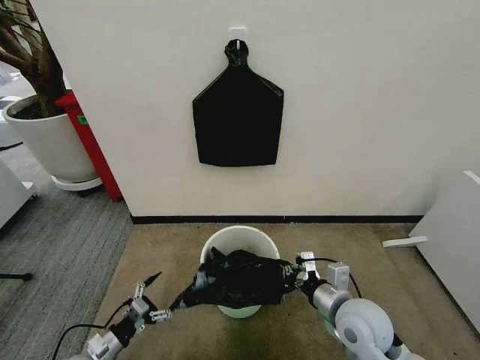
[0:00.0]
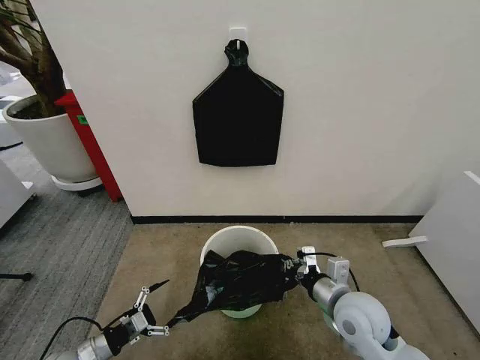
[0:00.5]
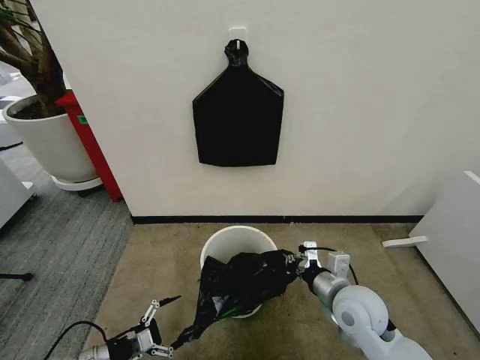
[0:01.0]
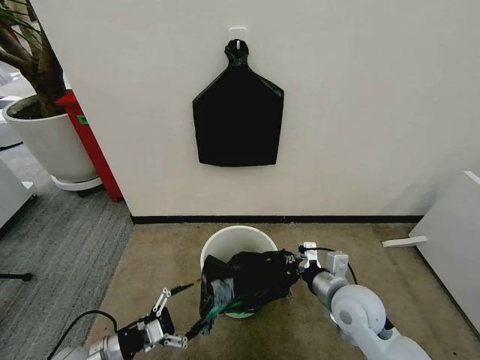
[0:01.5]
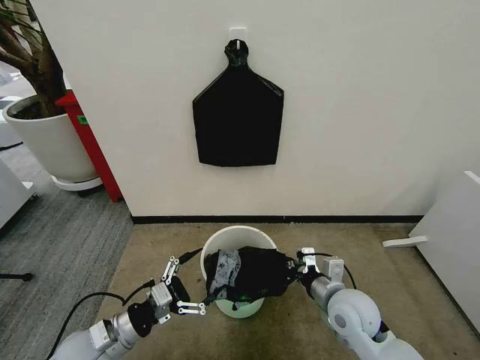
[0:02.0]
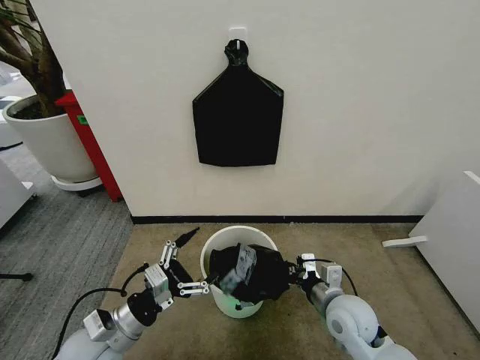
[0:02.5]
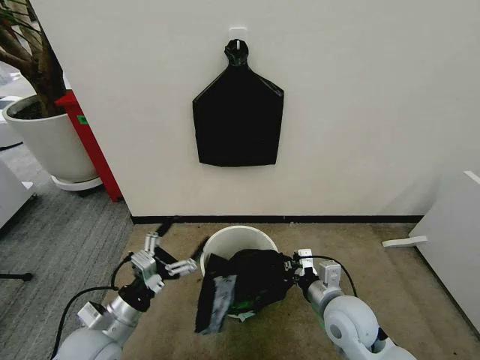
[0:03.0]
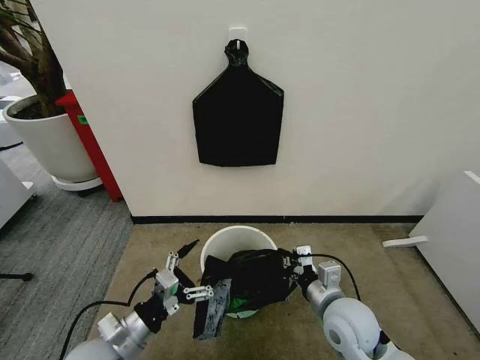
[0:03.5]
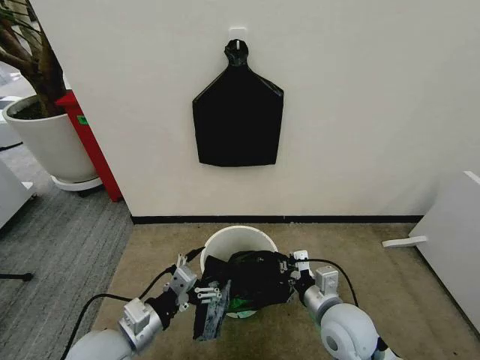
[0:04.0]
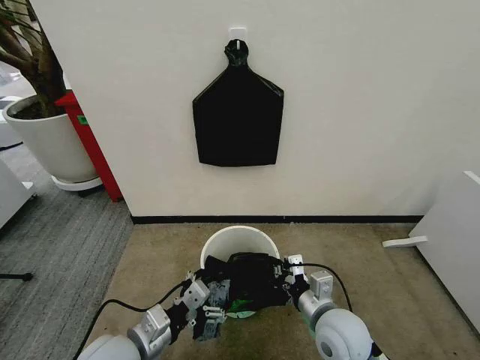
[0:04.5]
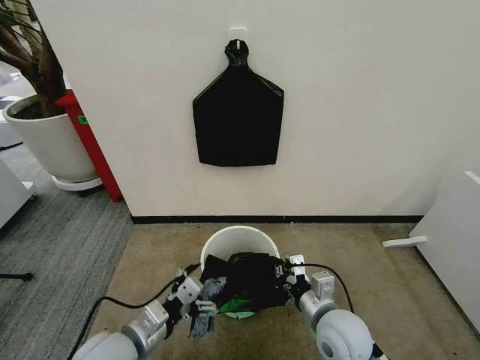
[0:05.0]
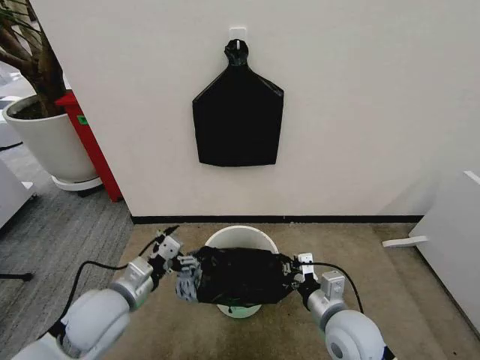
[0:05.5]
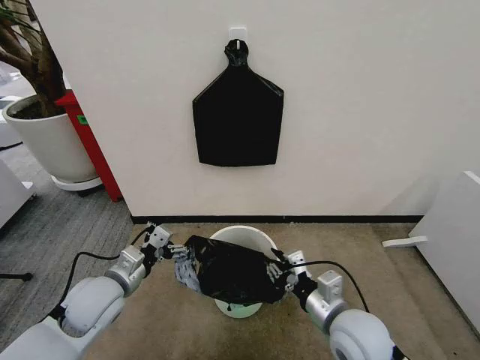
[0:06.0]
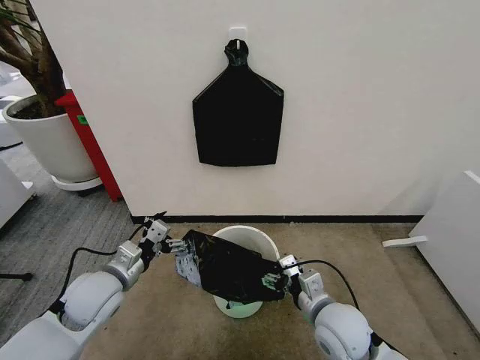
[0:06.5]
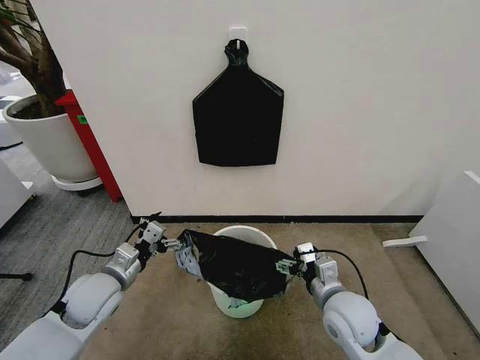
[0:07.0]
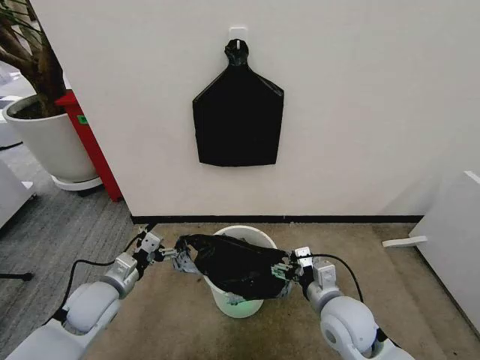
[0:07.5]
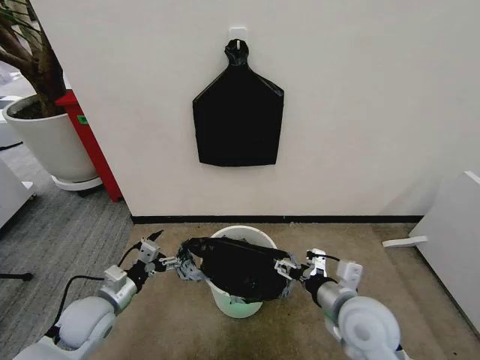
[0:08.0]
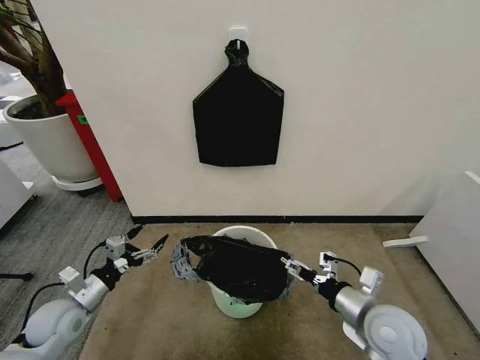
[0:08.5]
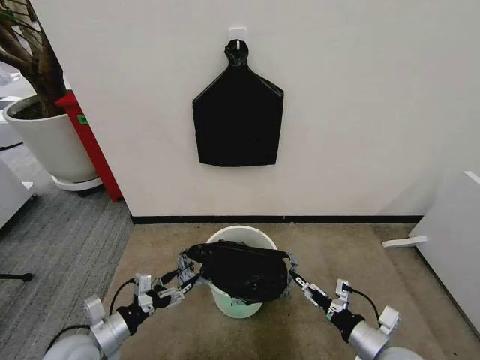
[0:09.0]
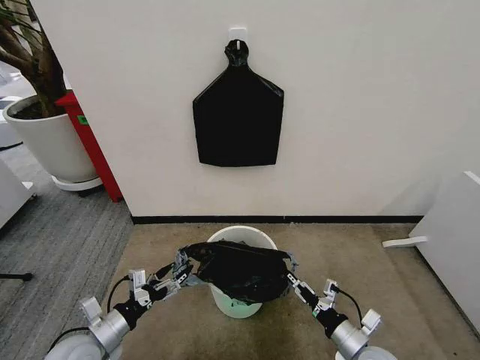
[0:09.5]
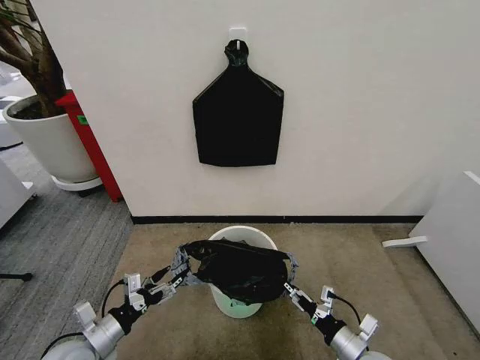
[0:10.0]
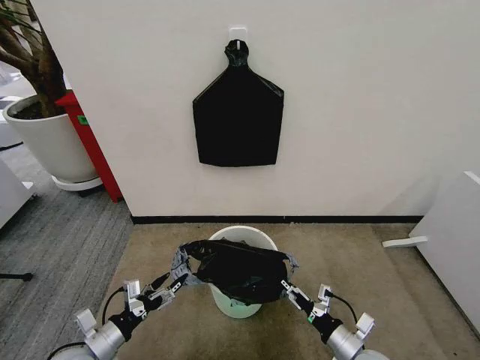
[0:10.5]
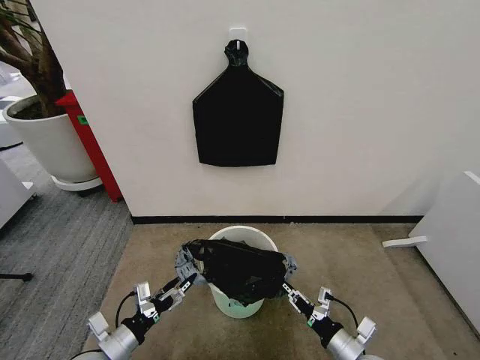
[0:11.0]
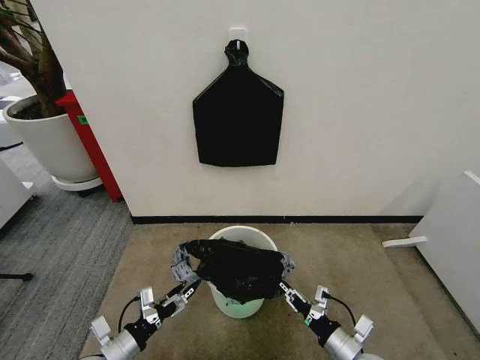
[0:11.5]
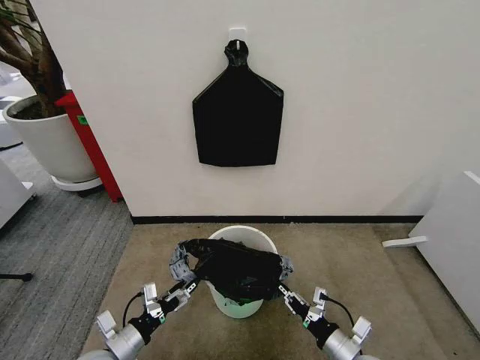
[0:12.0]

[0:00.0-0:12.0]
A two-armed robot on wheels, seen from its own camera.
Task of the whole recording: Place the garbage bag over the trash bin.
0:00.0 to 0:02.0: The left gripper goes some 15 cm upward and to the right.
0:02.0 to 0:04.0: The left gripper heads to the right and upward, covering roughly 10 cm.
0:04.0 to 0:06.0: The left gripper is displaced forward by about 10 cm.
0:06.0 to 0:08.0: The right gripper opens up, while the left gripper moves downward, approximately 5 cm.
0:08.0 to 0:10.0: The left gripper moves backward, some 5 cm. Meanwhile the right gripper goes approximately 20 cm downward and to the right.
0:10.0 to 0:12.0: The right gripper closes. Meanwhile the left gripper moves about 5 cm.

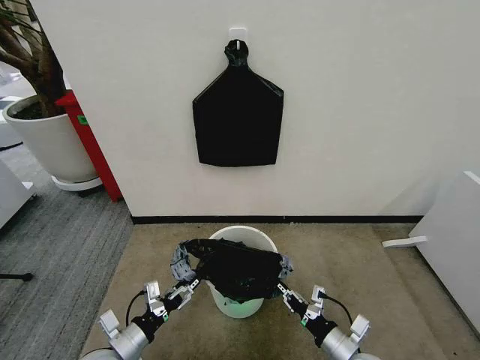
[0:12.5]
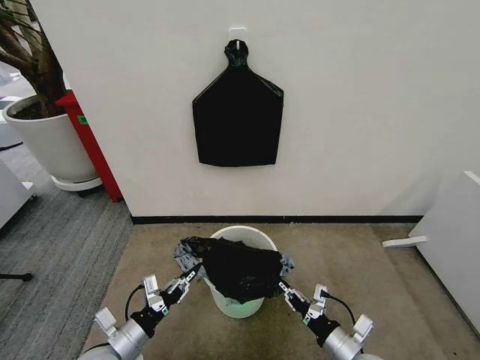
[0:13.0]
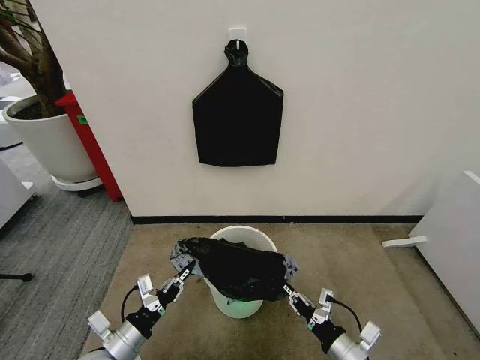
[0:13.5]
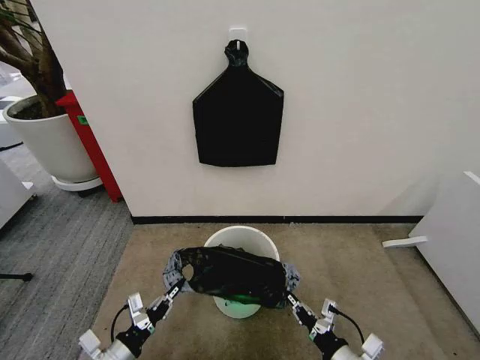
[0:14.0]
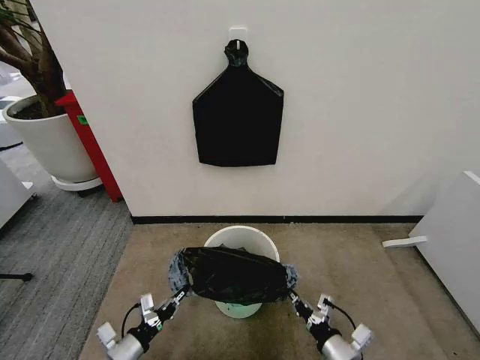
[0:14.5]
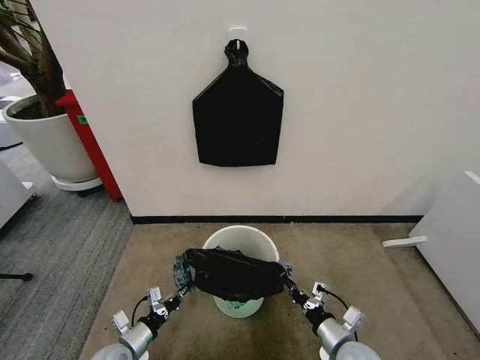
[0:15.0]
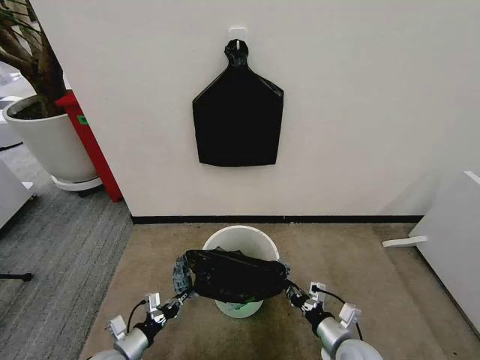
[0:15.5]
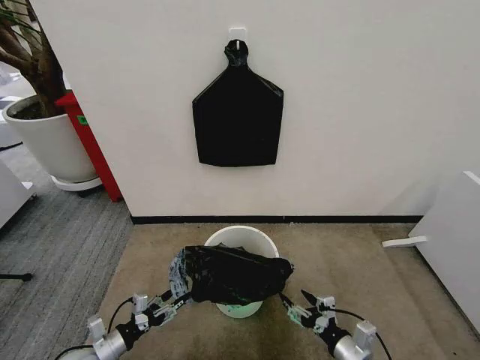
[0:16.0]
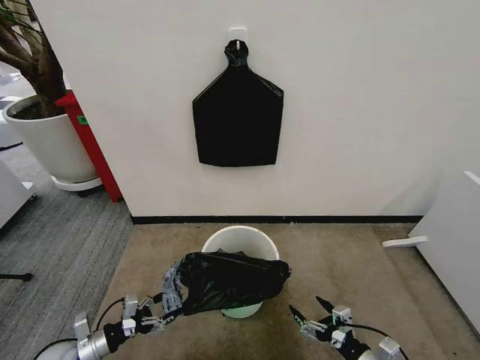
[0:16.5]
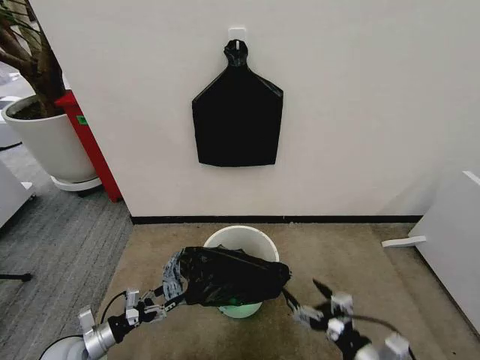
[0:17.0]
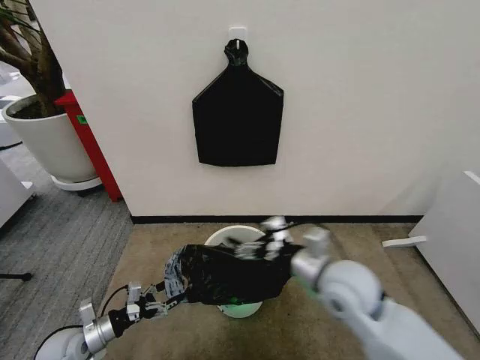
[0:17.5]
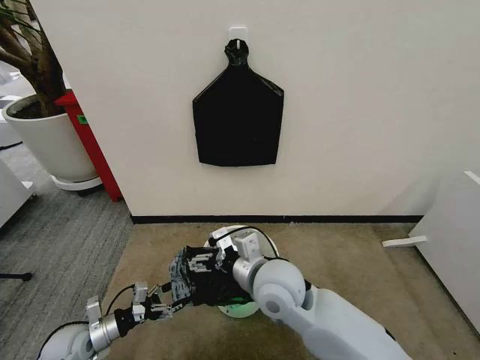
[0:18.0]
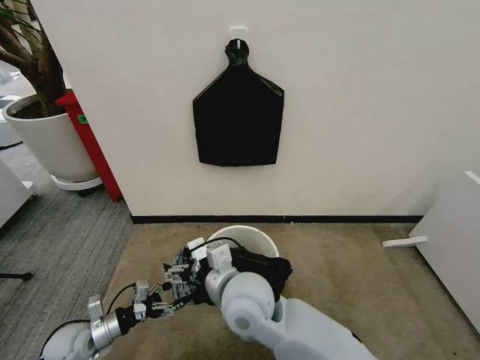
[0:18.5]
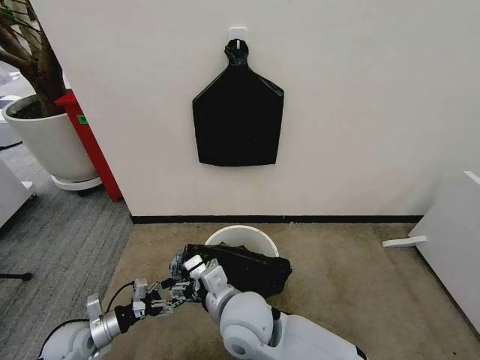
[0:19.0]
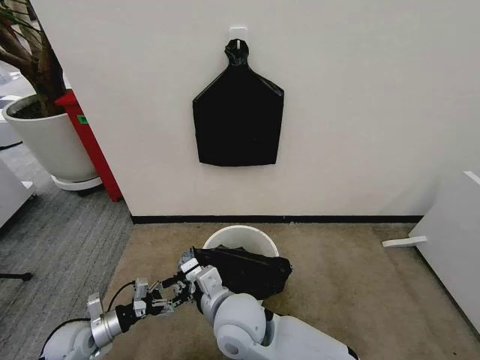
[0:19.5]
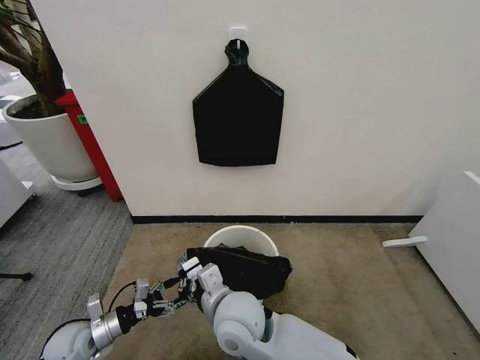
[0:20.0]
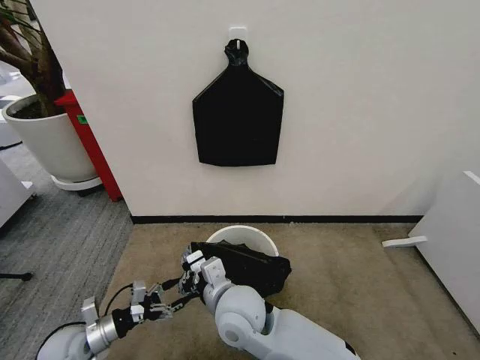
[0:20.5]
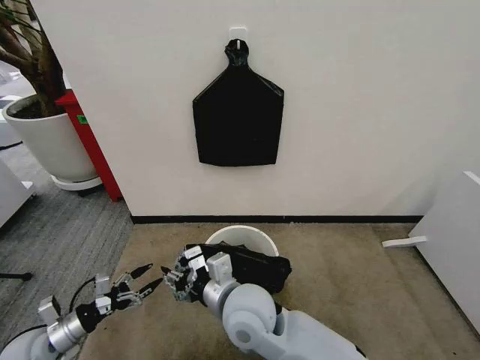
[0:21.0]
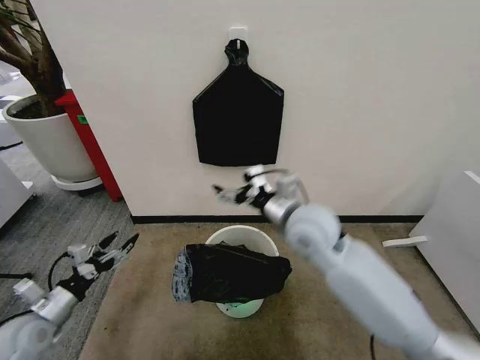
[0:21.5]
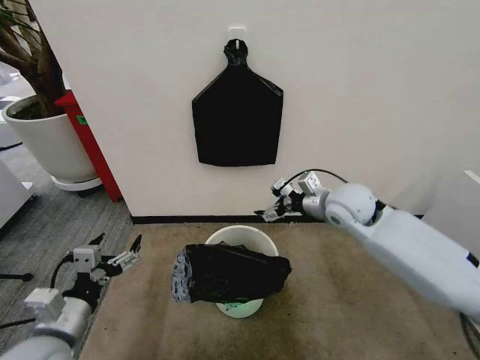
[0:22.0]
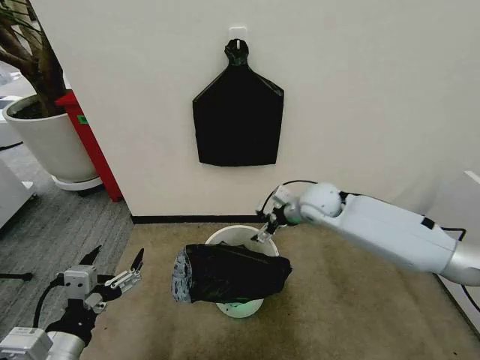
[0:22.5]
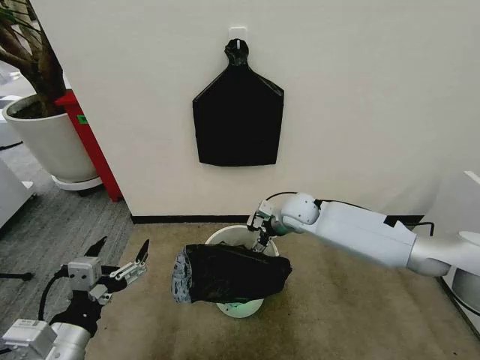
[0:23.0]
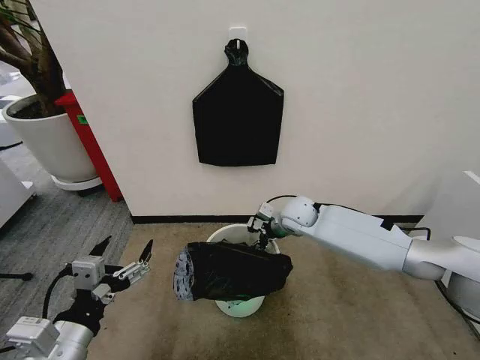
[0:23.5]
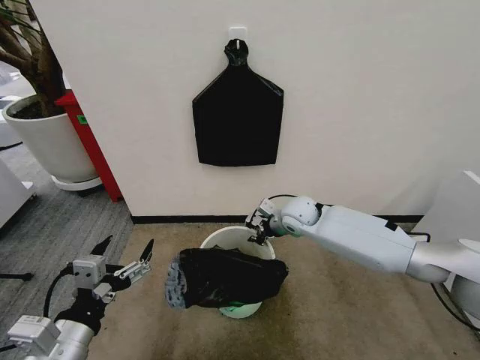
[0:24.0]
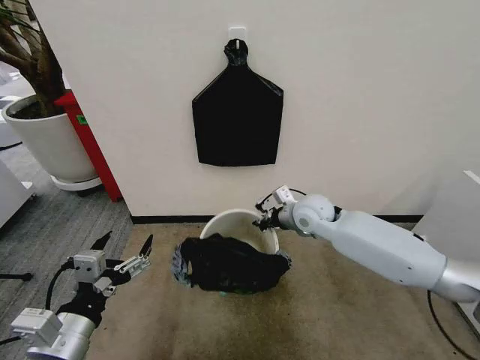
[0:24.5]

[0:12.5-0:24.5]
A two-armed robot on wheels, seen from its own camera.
Task of the whole recording: Place the garbage bag over the trash bin.
0:12.5 to 0:14.5: The left gripper travels downward by some 5 cm, and closes.
0:14.5 to 0:16.5: The left gripper travels to the left by roughly 10 cm, and opens; the right gripper moves to the right, approximately 5 cm, and opens up.
0:16.5 to 0:18.5: The right gripper heads to the left, upward and forward, covering about 40 cm.
0:18.5 to 0:20.5: The right gripper closes.
0:20.5 to 0:22.5: The left gripper shifts approximately 25 cm upward, backward and to the right. The right gripper moves forward and to the right, approximately 30 cm, and opens up.
0:22.5 to 0:24.5: The right gripper closes up.

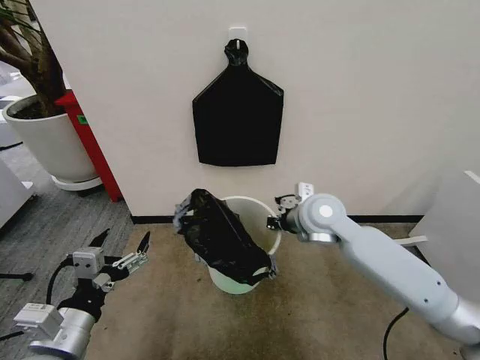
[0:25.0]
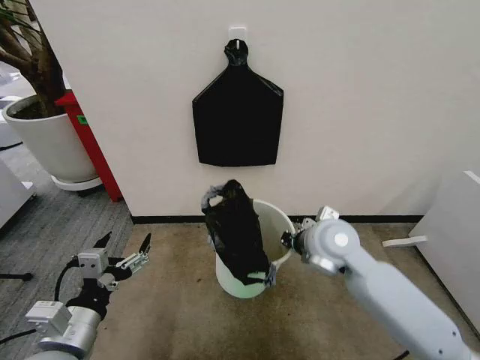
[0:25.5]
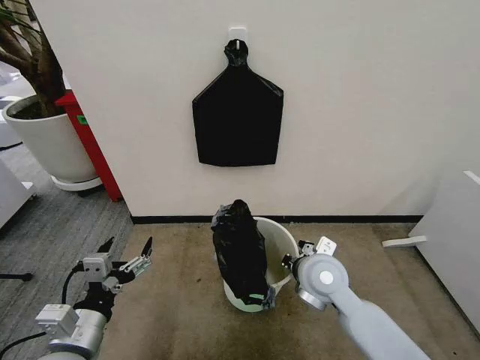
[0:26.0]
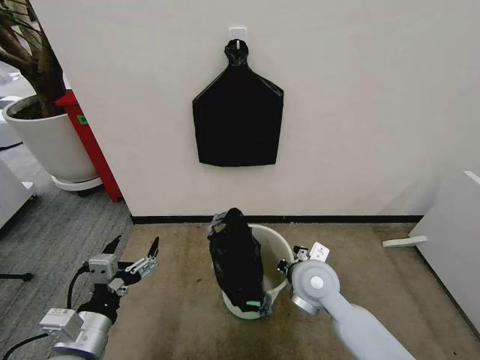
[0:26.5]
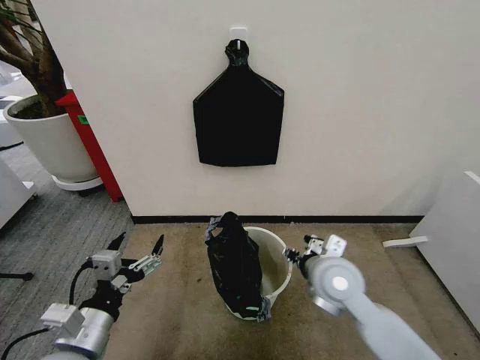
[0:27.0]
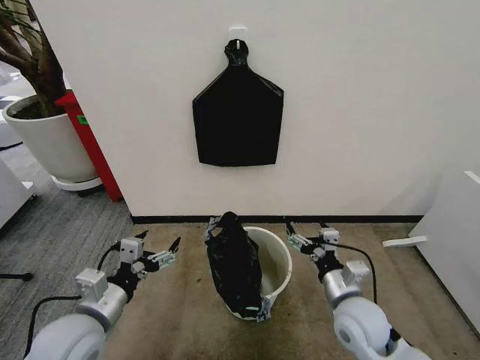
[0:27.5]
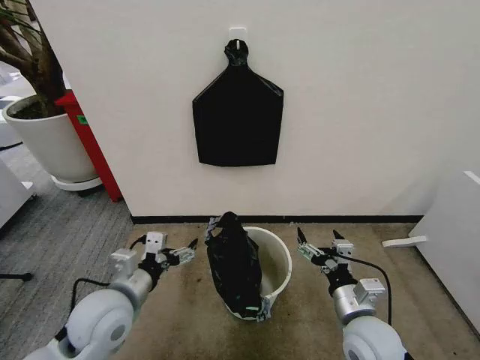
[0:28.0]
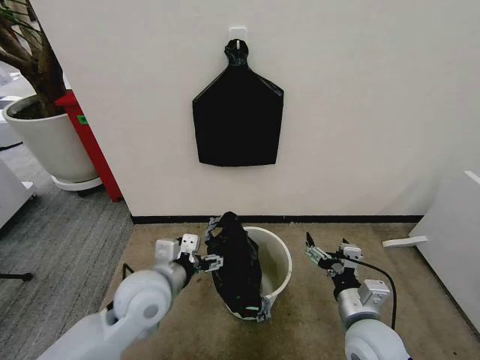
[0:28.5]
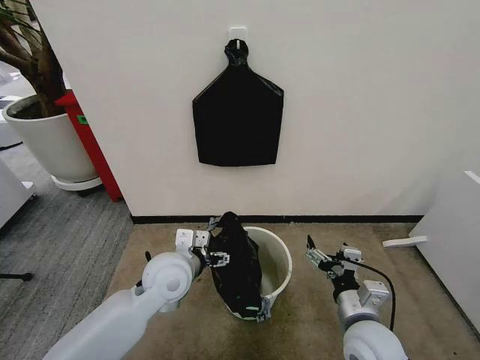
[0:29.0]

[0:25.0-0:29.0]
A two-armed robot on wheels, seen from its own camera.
Task of the whole recording: Place the garbage bag over the trash bin.
0:25.0 to 0:27.0: The right gripper goes roughly 15 cm backward and downward, and opens up.
0:27.0 to 0:29.0: The left gripper moves forward and to the right, roughly 20 cm. Meanwhile the right gripper travels backward and downward by roughly 10 cm, and opens up.
